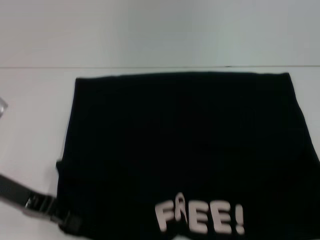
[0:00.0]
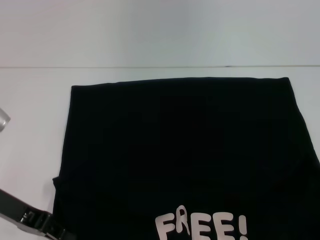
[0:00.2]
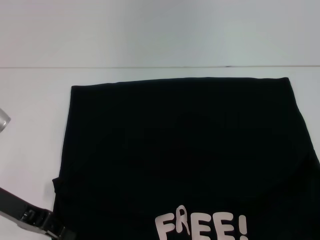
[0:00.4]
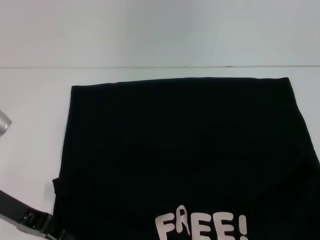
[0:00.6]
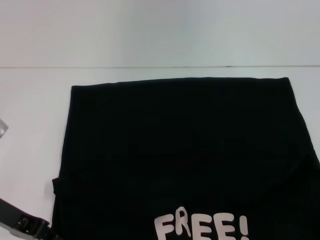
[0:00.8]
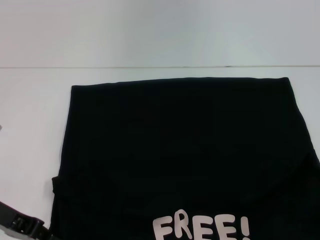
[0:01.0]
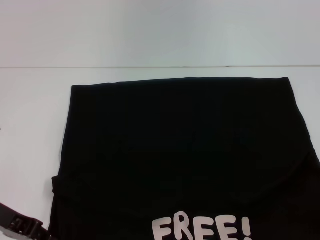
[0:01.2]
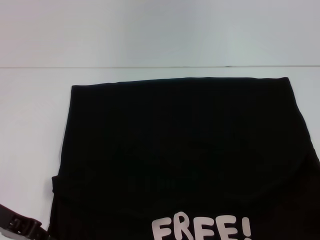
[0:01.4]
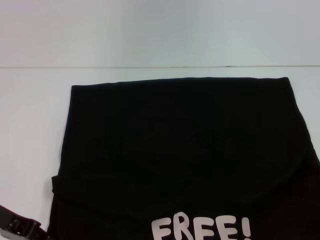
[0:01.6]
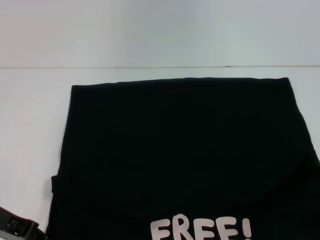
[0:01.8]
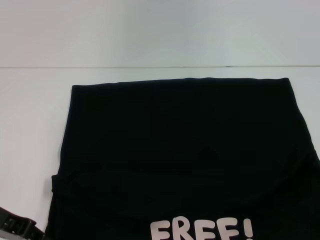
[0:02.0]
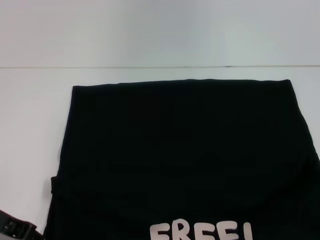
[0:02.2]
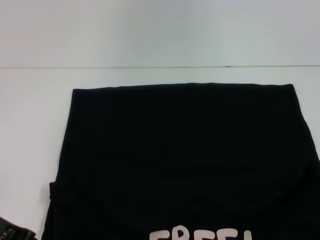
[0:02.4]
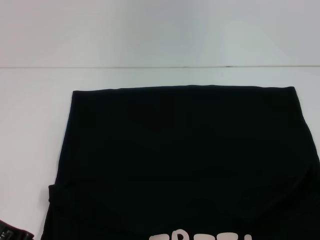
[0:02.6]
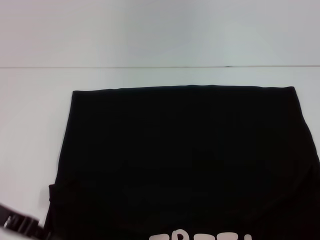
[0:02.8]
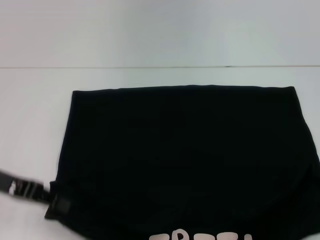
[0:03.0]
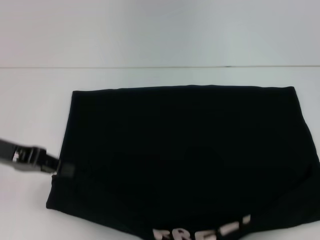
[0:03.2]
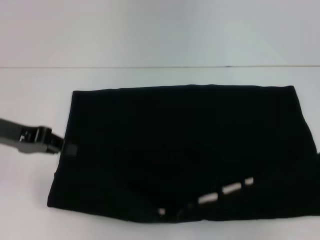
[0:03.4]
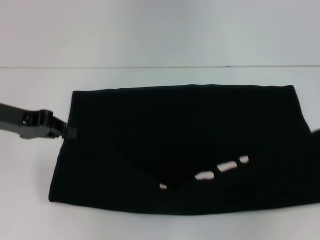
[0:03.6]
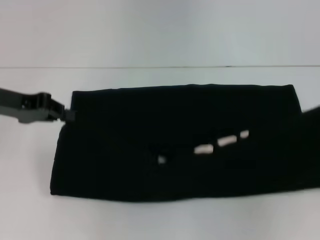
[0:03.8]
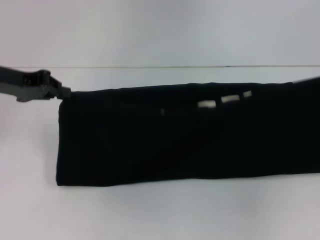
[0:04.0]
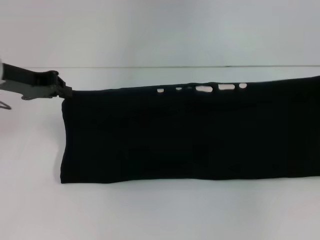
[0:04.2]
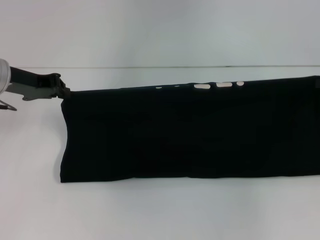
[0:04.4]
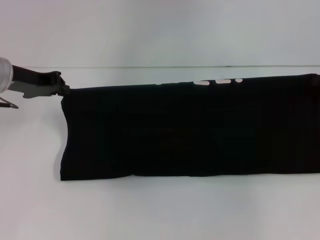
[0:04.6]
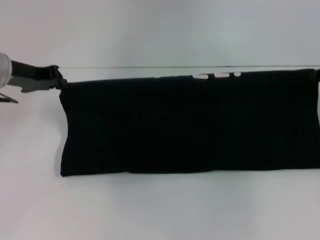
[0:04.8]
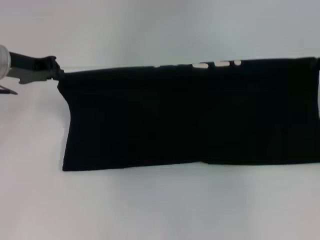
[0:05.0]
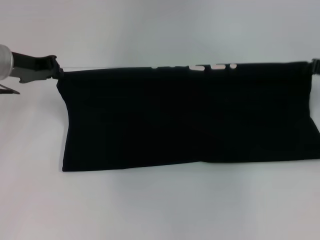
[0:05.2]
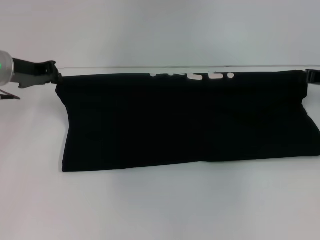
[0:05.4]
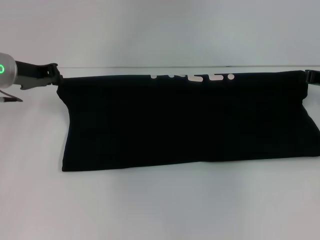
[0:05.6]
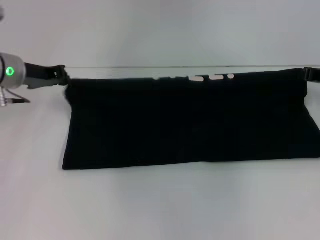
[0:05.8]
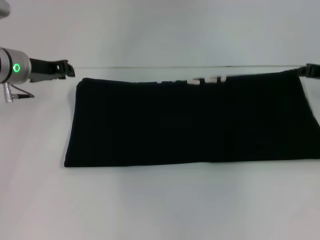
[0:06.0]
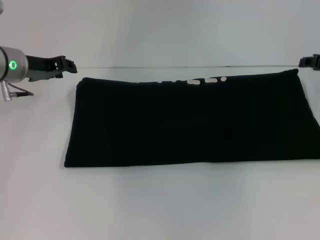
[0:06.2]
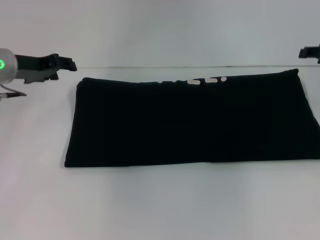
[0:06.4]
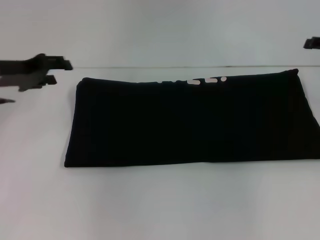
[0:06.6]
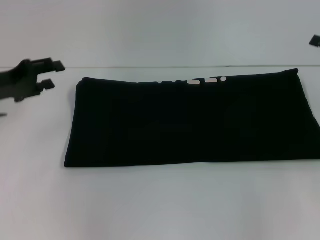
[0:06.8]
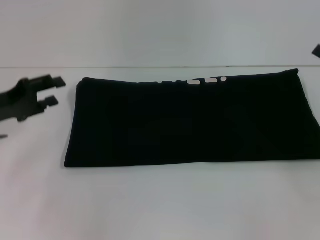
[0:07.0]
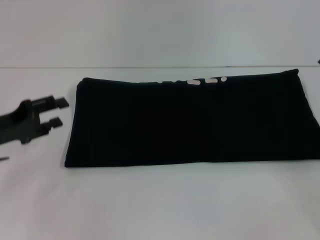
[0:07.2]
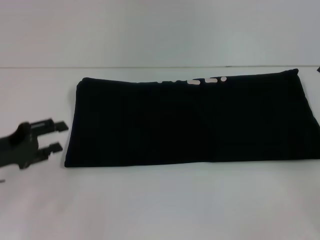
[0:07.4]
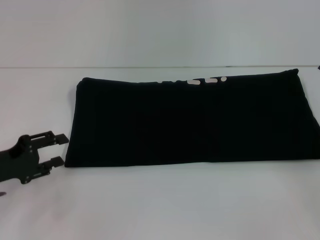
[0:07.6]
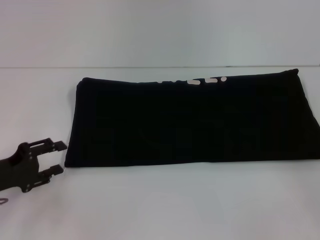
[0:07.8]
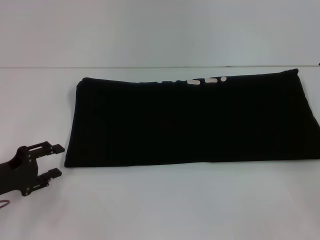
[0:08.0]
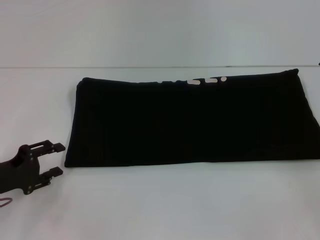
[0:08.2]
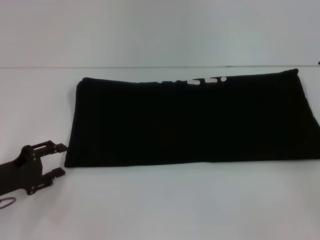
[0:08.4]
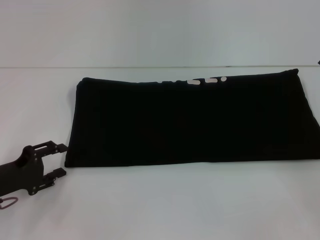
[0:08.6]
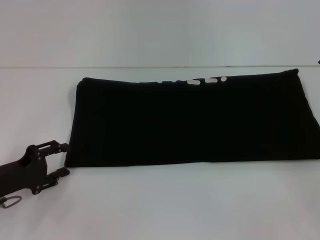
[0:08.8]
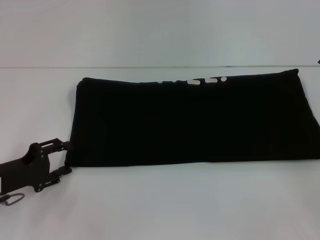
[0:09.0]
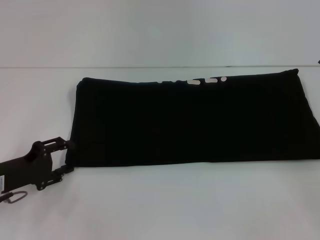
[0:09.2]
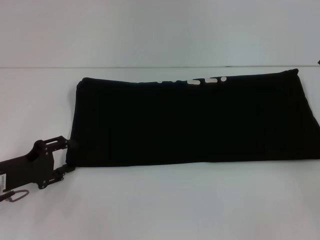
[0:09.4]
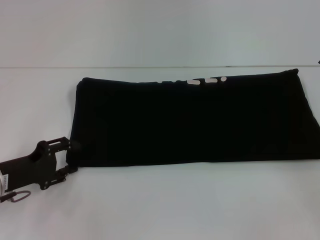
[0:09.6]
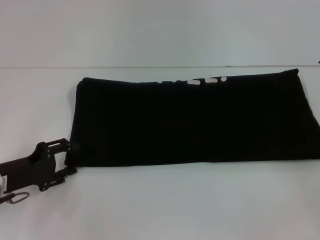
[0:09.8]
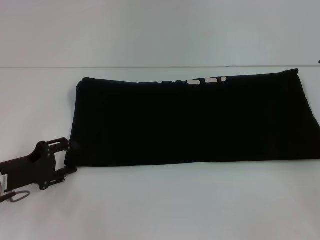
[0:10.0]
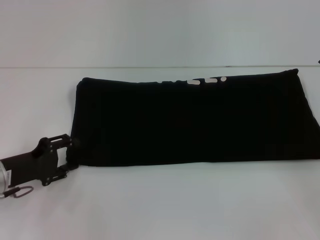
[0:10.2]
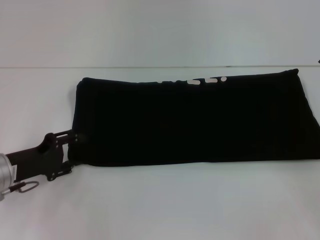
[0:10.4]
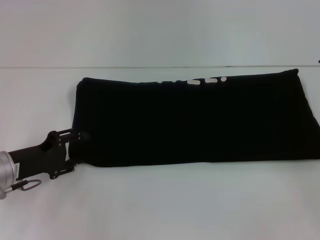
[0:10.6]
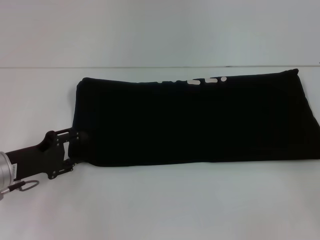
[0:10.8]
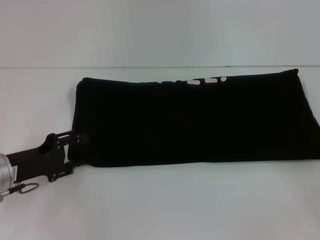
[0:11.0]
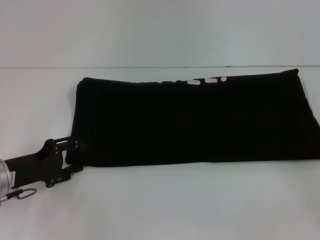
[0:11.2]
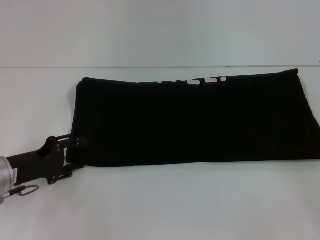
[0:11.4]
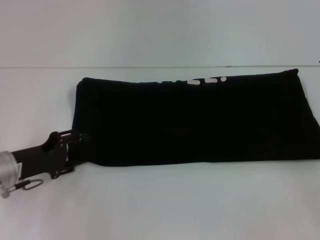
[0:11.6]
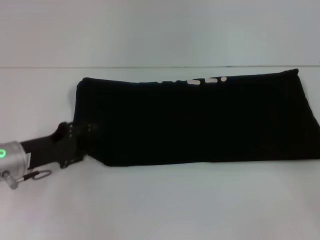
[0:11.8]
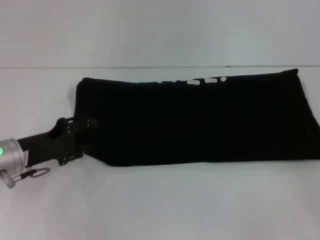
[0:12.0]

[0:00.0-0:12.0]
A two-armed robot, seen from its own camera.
Step, 0:00.4 to 0:06.2: Fold the clothes with your right hand.
0:00.0 to 0:03.0: The grippers make only small movements.
0:03.0 to 0:04.4: The two grippers go approximately 10 cm forward.
0:04.4 to 0:06.0: The right gripper shifts by roughly 5 cm.
0:06.0 to 0:07.6: The left gripper travels backward, downward and to the left by roughly 20 cm, and opens up. Meanwhile the right gripper travels backward by roughly 15 cm, and opens.
0:07.6 to 0:10.4: There are only small adjustments of the grippers.
0:10.4 to 0:12.0: The grippers make only small movements.

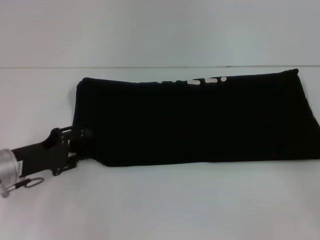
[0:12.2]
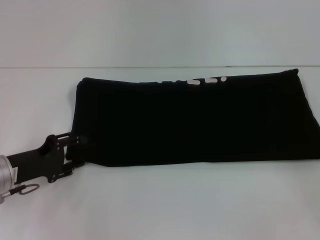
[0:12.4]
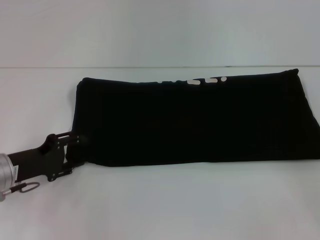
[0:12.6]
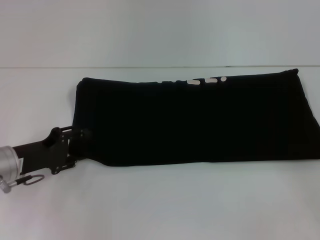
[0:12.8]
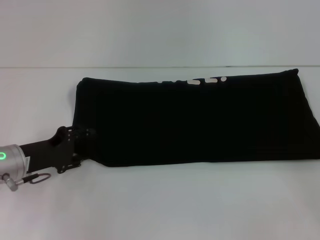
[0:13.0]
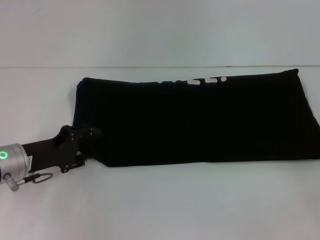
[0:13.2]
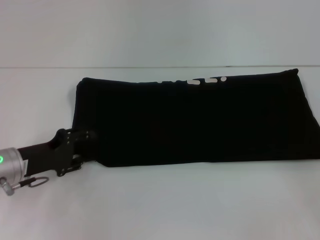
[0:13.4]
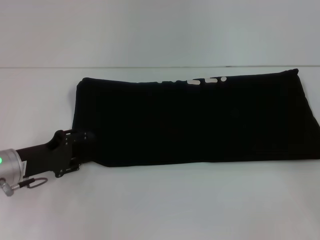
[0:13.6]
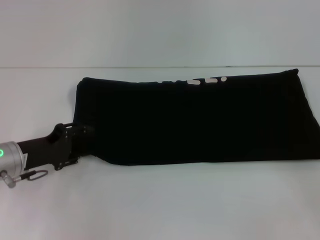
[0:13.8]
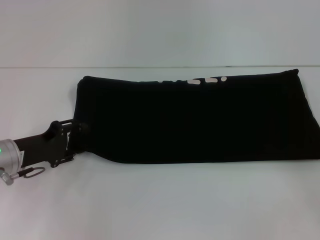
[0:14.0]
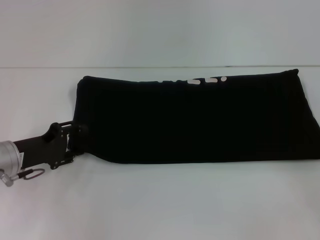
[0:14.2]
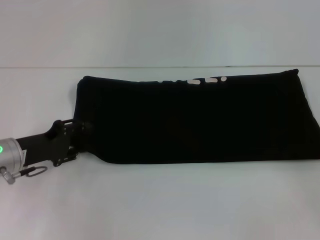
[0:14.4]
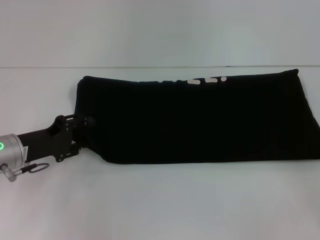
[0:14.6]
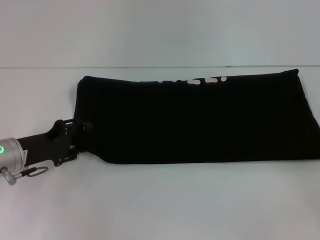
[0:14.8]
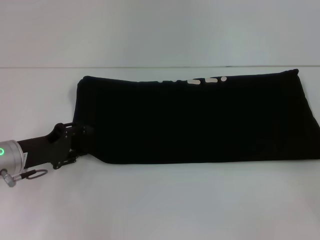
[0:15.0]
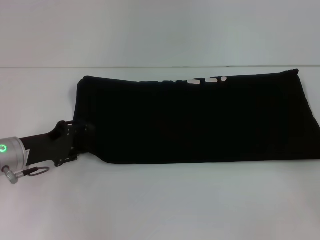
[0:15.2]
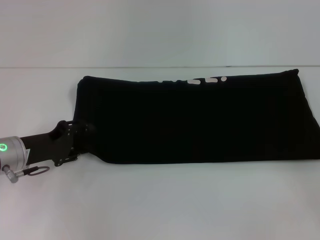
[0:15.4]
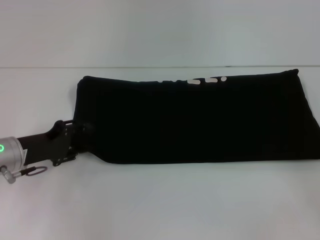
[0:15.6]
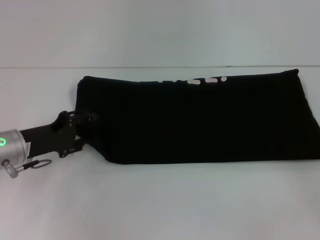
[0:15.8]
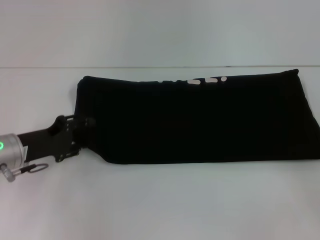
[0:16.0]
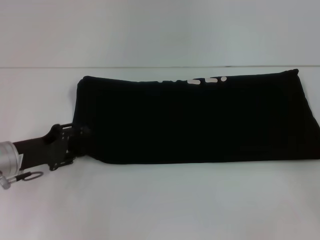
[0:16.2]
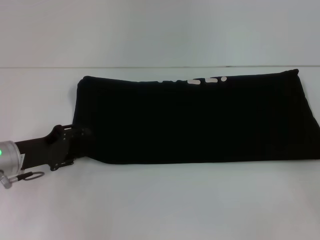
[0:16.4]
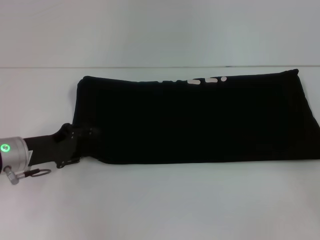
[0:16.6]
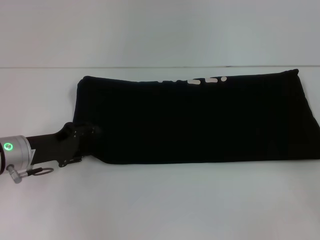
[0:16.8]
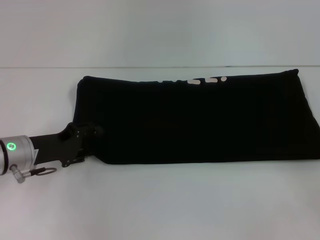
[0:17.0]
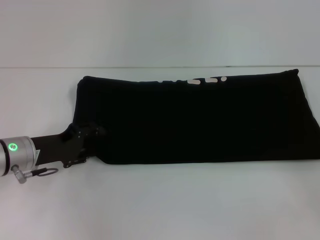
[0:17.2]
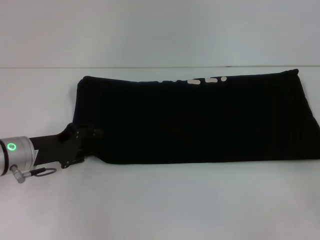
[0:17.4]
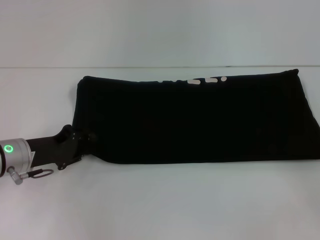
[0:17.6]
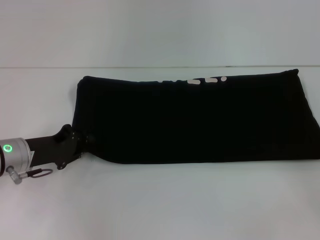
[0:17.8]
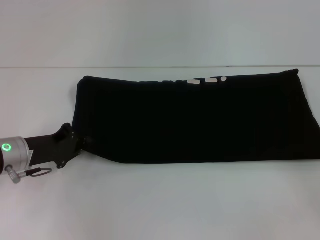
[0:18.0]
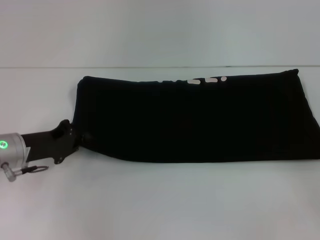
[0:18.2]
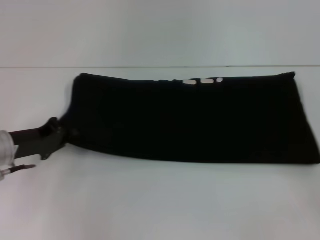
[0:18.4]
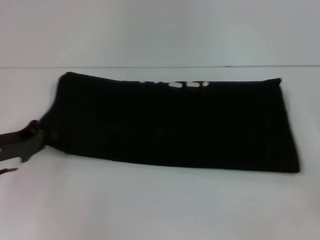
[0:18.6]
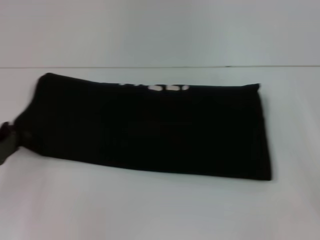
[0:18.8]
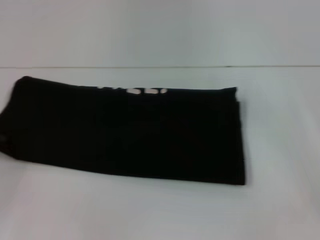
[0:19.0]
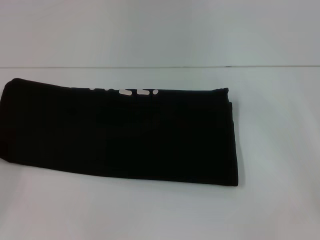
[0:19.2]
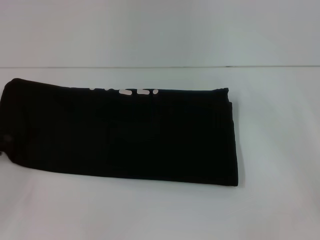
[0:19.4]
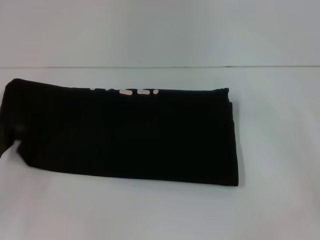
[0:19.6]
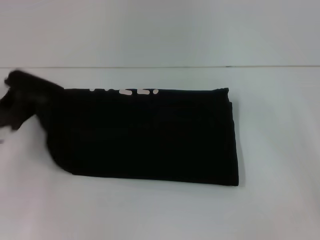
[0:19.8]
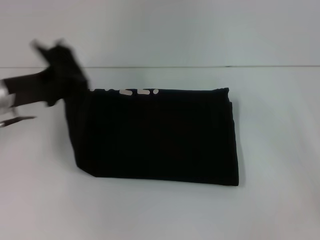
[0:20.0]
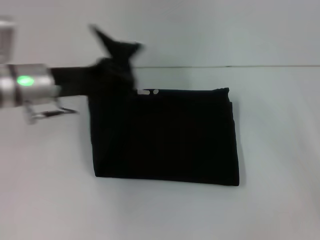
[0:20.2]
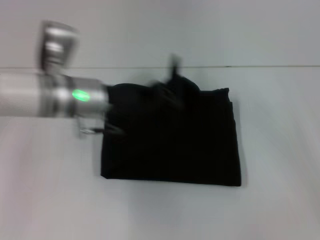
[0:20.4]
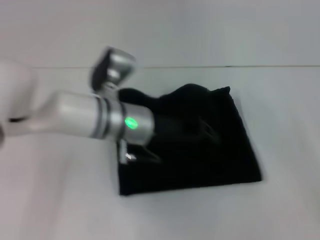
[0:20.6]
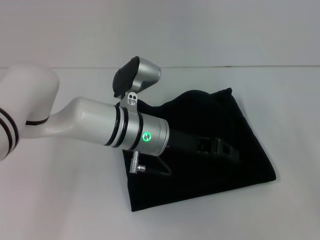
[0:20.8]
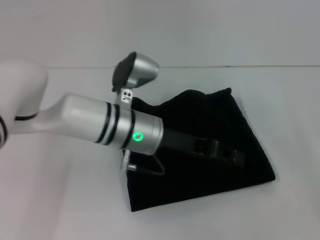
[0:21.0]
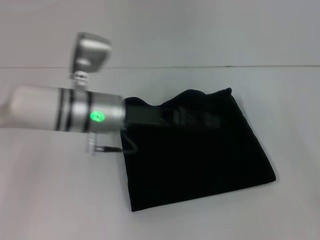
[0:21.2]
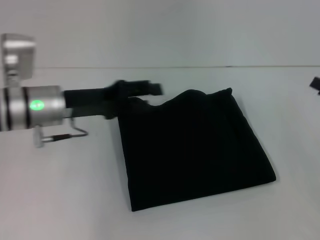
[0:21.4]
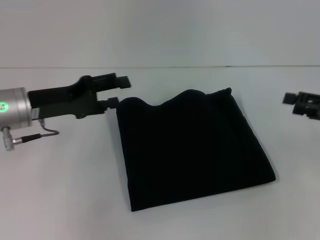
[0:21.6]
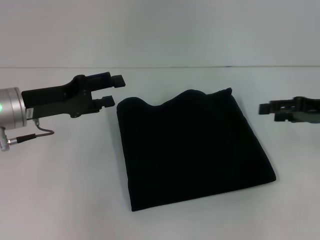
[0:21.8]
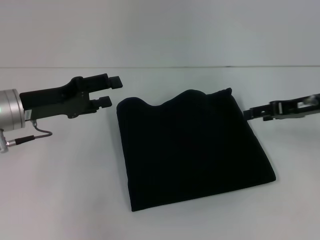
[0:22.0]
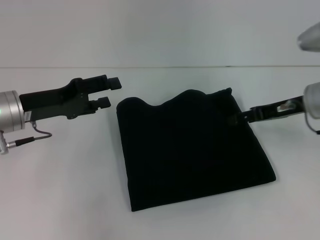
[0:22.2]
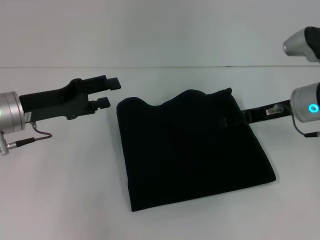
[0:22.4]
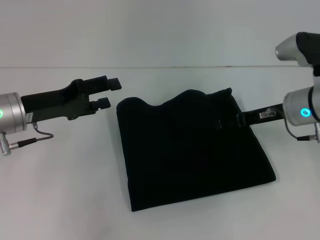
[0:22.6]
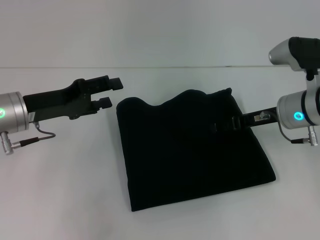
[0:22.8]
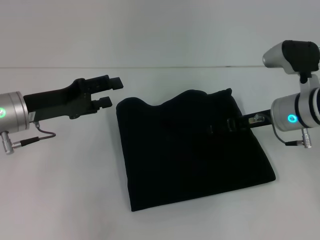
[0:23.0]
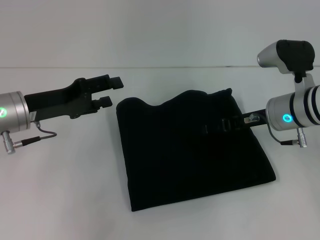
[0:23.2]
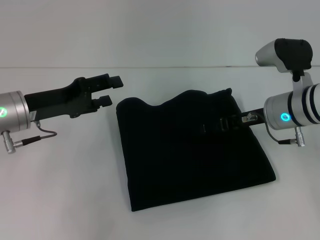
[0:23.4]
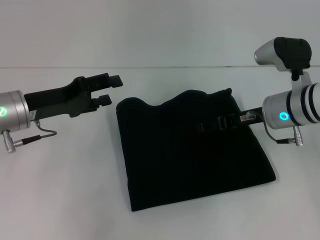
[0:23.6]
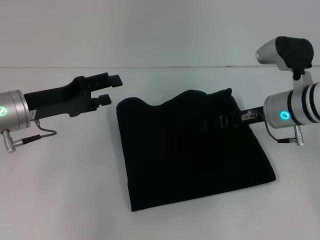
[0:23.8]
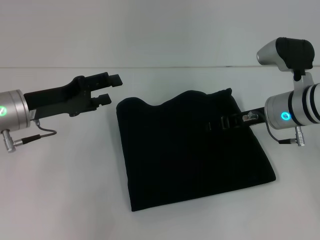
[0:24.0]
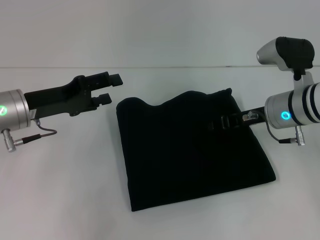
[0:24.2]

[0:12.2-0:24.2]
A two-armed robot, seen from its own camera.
Step, 0:12.2 to 0:21.0: Fold the clothes with your left hand.
0:12.2 to 0:13.8: The grippers make only small movements.
0:13.8 to 0:15.2: Neither gripper changes place.
0:15.2 to 0:16.6: The grippers stay close to where they were, moving slightly.
0:16.6 to 0:18.2: The left gripper closes.
0:18.2 to 0:19.8: The left gripper moves to the left, approximately 5 cm.
0:19.8 to 0:21.2: The left gripper moves to the right, about 20 cm, and opens up.
0:21.2 to 0:22.6: The left gripper moves to the left, some 15 cm, and opens its fingers. Meanwhile the right gripper heads to the left and forward, covering about 20 cm.
0:22.6 to 0:24.2: The right gripper closes up.
